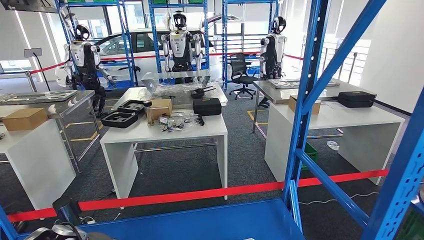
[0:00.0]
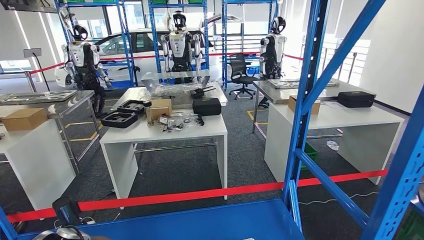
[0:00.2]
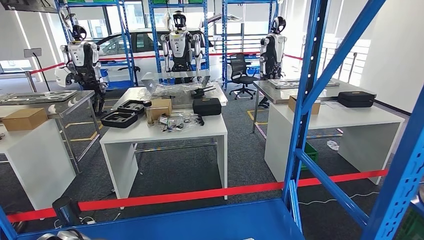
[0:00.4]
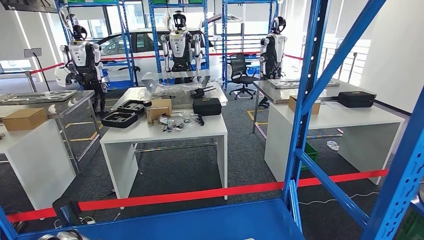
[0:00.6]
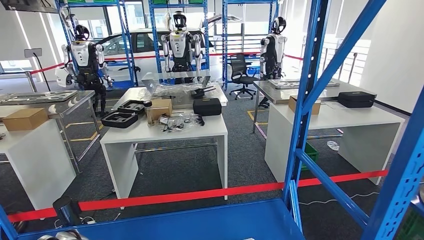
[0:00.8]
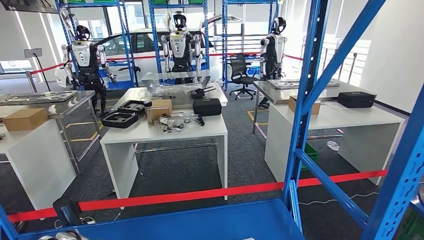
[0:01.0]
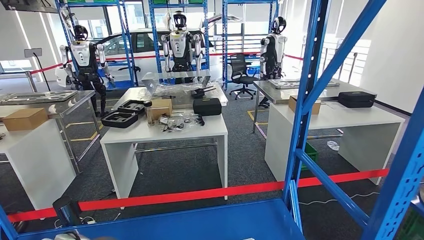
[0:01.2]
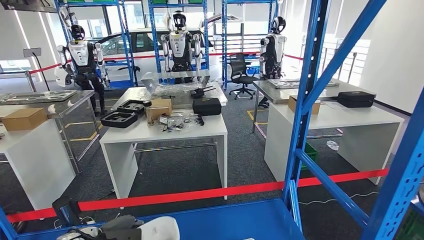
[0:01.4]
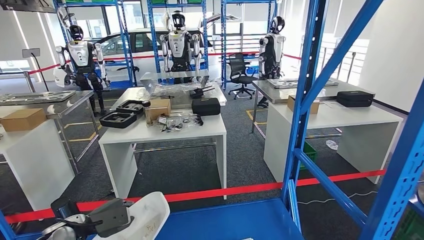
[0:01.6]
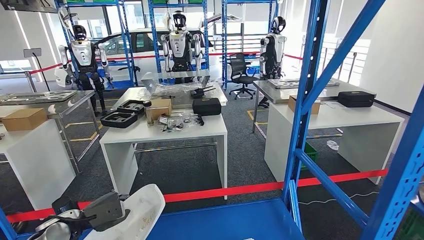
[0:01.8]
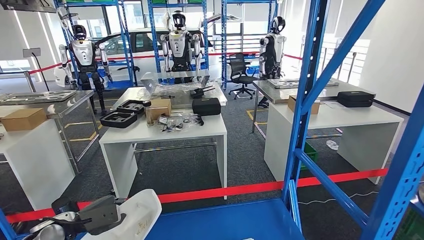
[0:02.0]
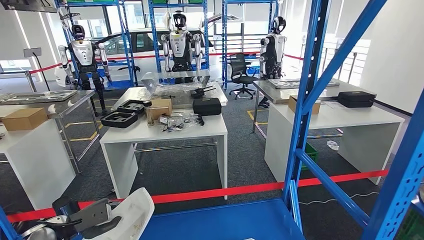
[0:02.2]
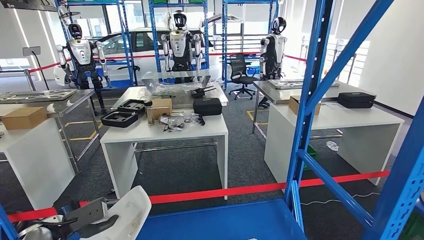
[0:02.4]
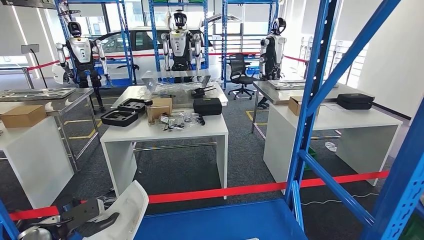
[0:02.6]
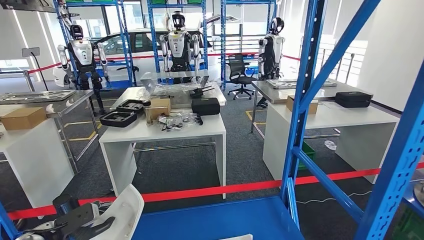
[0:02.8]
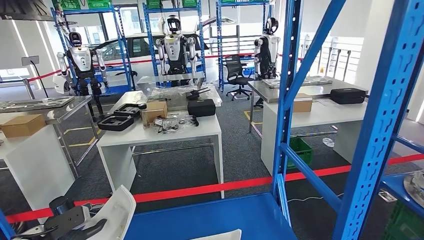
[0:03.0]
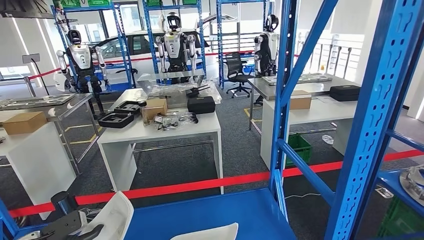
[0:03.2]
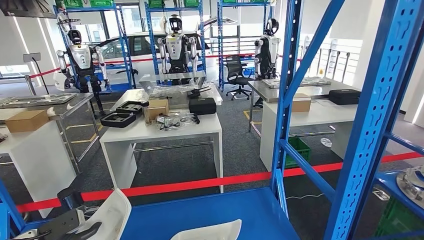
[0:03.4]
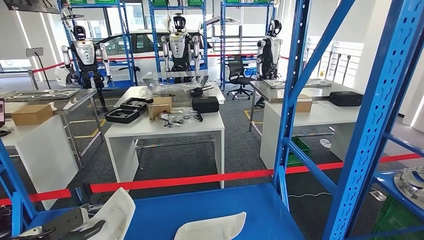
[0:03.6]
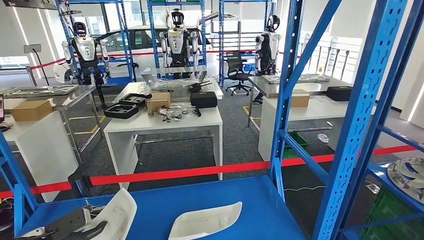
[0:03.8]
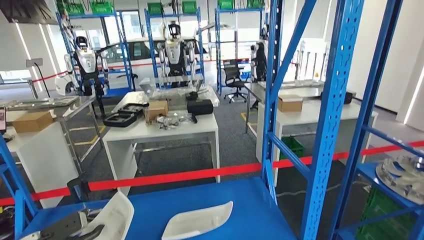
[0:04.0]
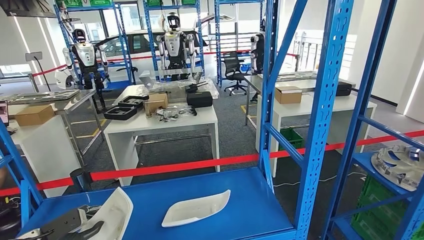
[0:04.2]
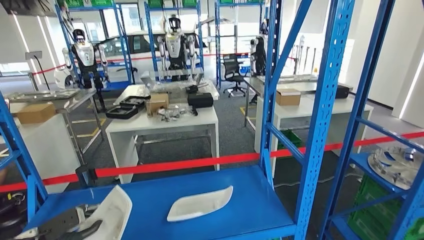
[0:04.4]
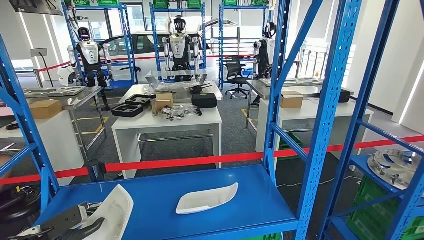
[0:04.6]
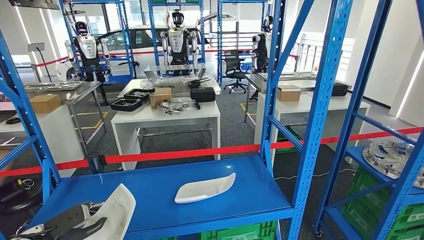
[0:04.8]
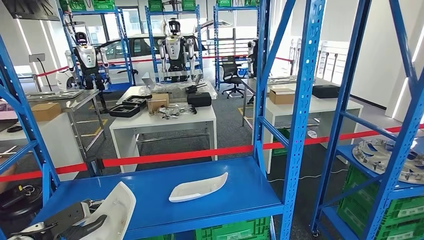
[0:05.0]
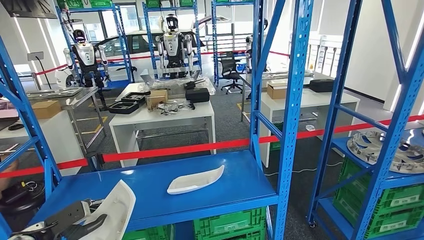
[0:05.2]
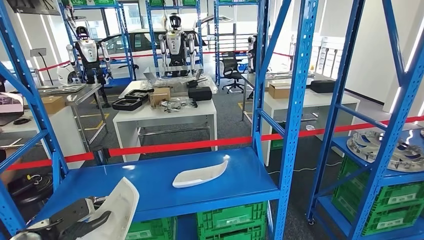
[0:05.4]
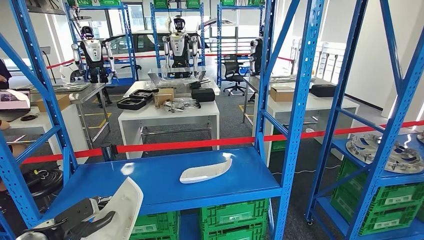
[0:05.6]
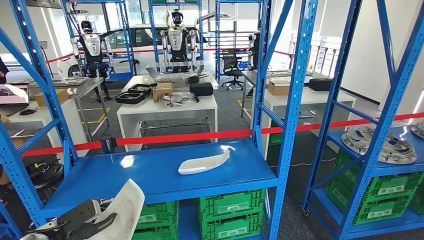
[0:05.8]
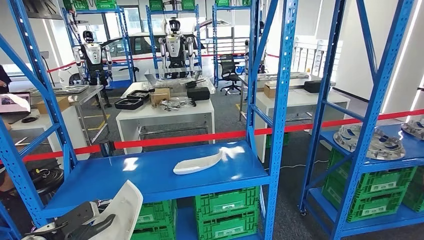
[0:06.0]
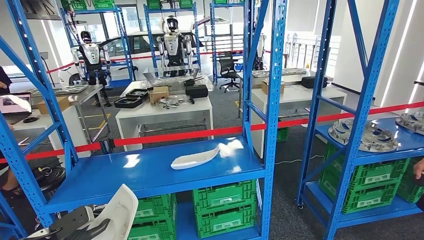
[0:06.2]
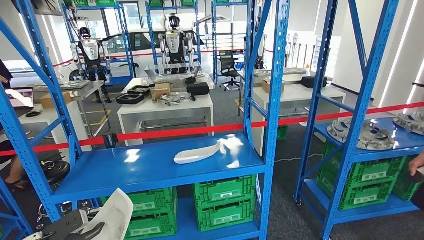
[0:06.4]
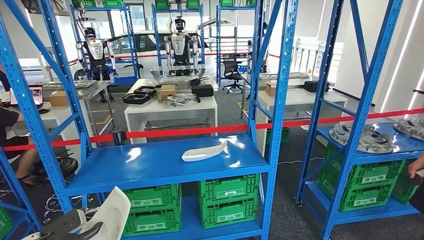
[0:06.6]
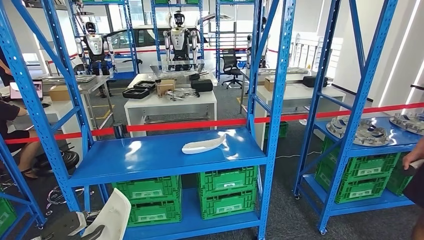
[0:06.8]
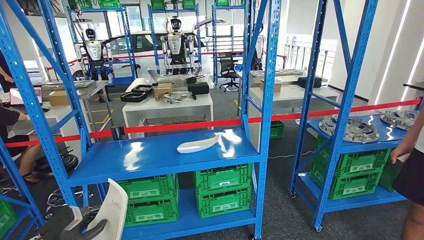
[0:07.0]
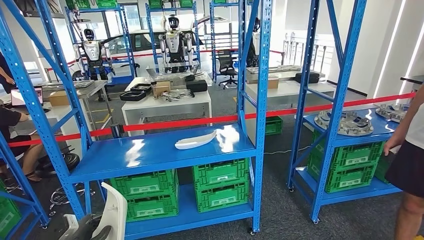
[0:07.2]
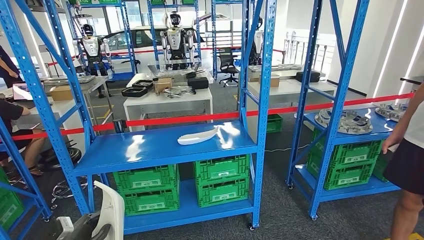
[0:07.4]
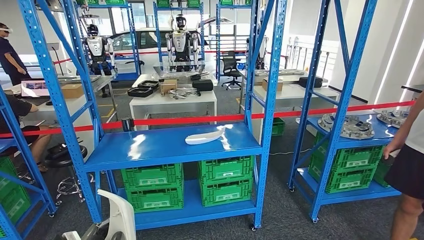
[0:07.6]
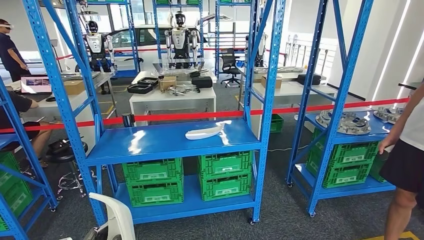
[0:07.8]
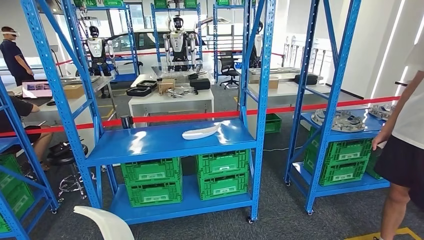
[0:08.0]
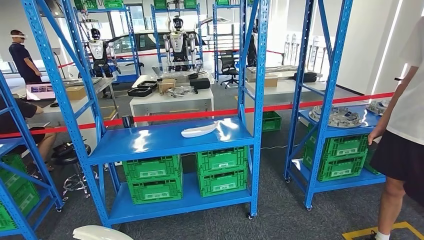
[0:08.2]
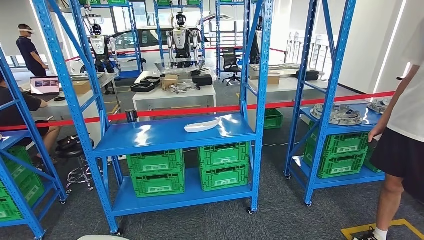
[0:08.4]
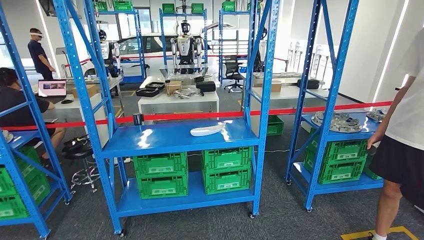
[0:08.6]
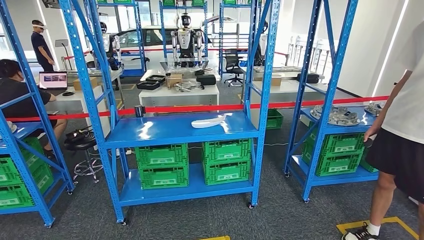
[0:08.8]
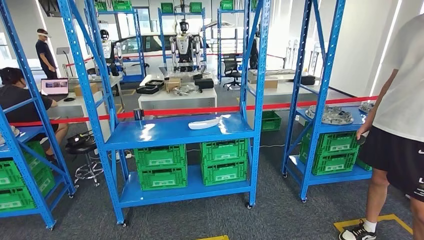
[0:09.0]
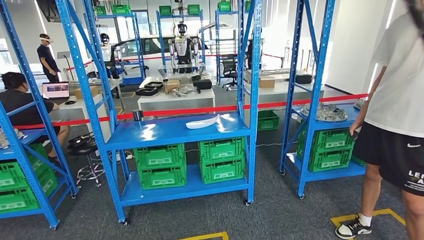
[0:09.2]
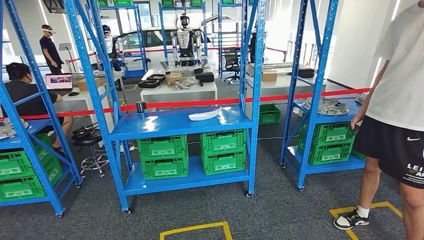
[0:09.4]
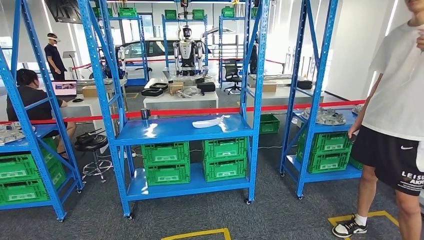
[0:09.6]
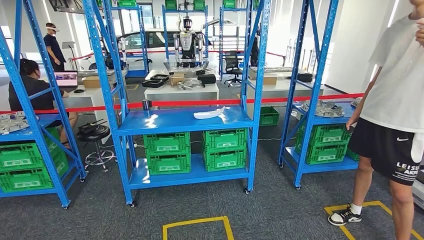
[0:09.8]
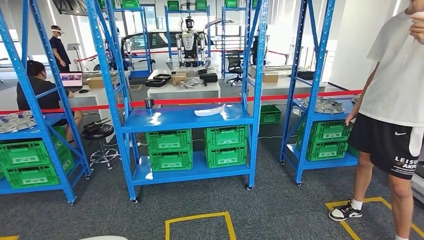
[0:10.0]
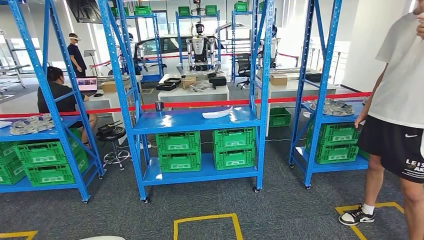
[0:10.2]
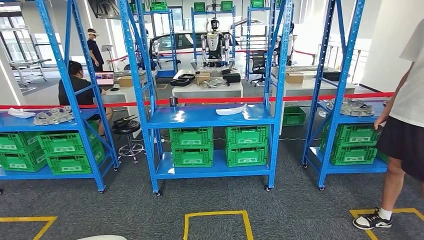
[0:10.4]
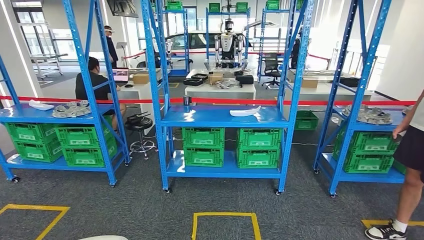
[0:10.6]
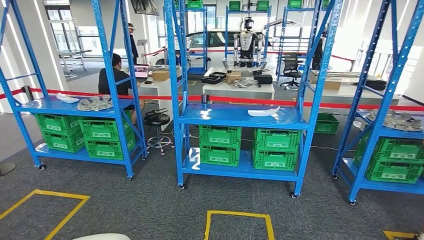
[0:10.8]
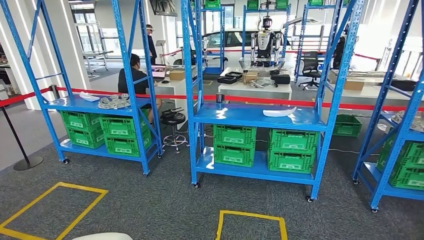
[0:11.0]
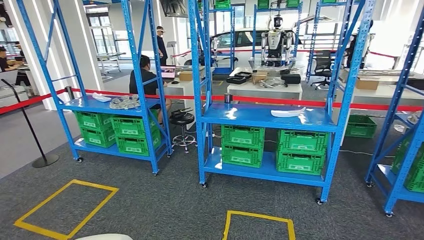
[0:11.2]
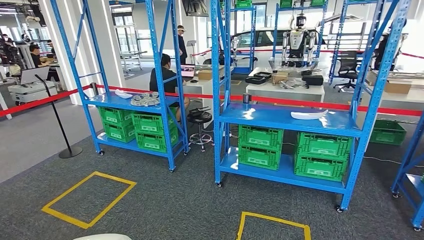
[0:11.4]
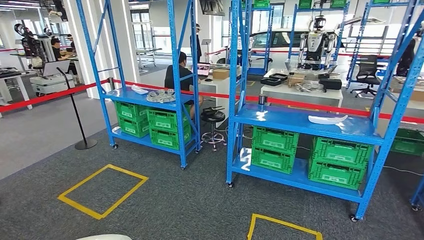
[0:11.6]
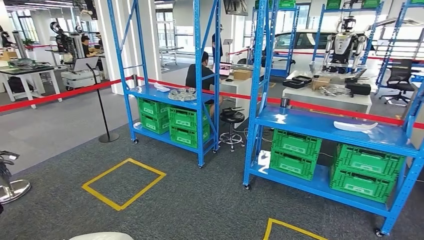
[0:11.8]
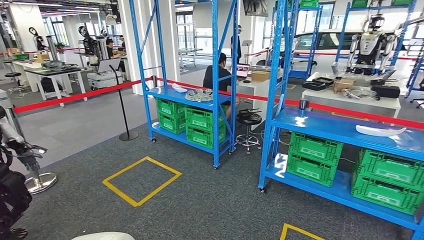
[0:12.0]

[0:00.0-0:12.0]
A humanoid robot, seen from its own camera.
Step, 0:00.0 to 0:03.4: Pick up the small component from the shelf.

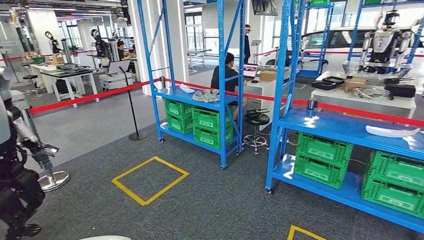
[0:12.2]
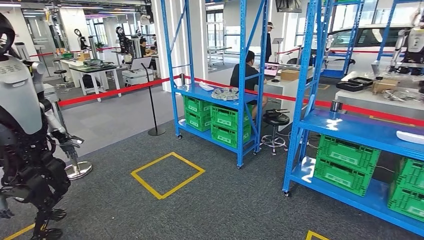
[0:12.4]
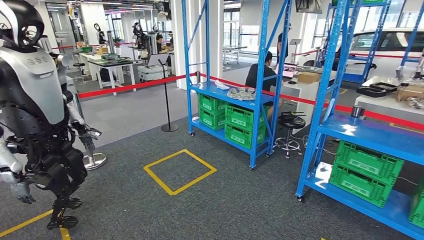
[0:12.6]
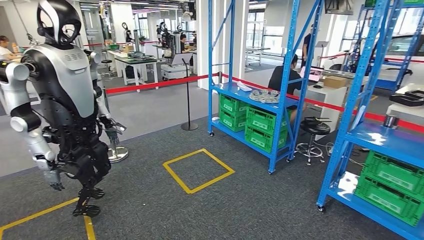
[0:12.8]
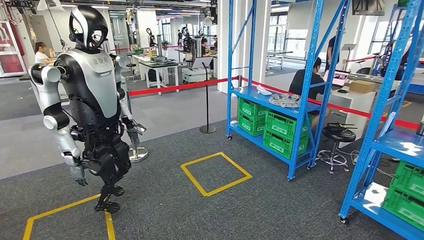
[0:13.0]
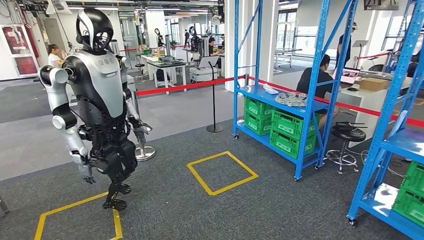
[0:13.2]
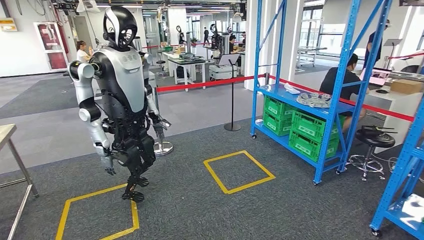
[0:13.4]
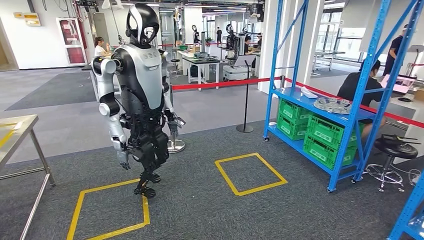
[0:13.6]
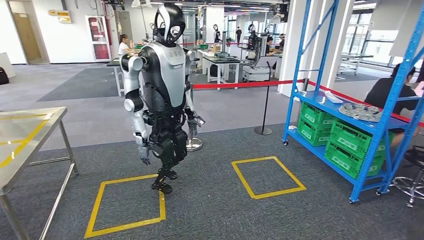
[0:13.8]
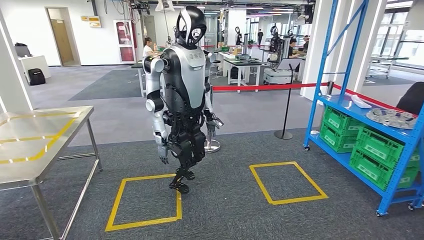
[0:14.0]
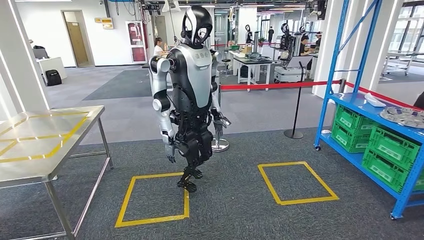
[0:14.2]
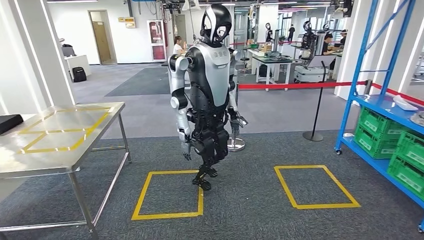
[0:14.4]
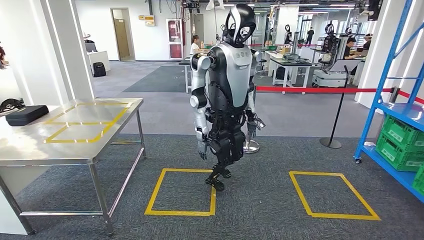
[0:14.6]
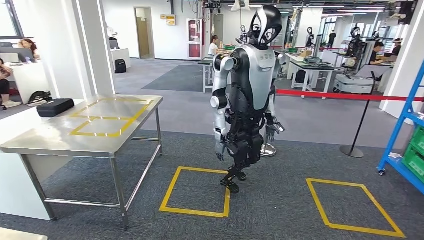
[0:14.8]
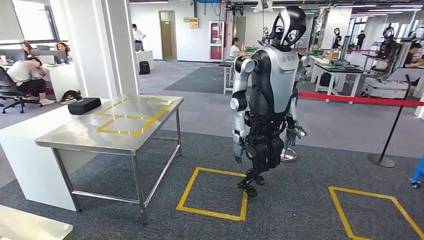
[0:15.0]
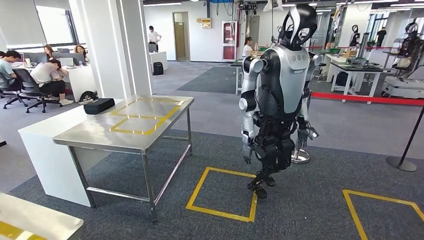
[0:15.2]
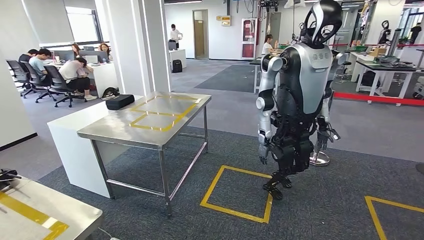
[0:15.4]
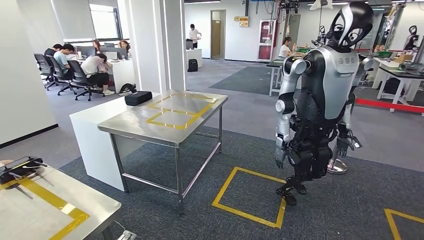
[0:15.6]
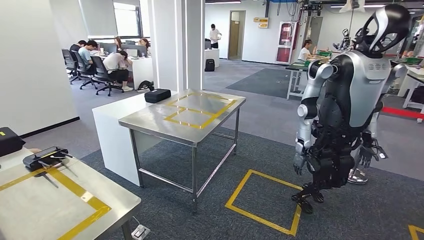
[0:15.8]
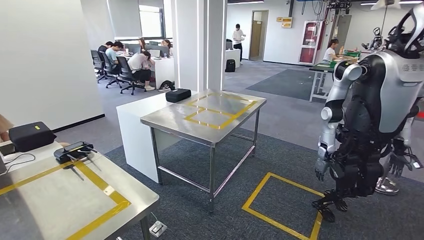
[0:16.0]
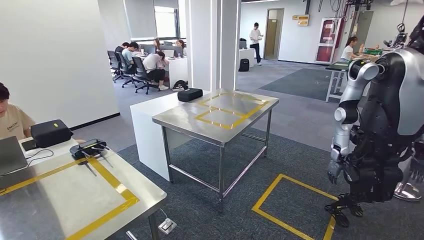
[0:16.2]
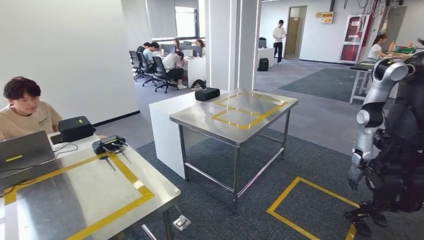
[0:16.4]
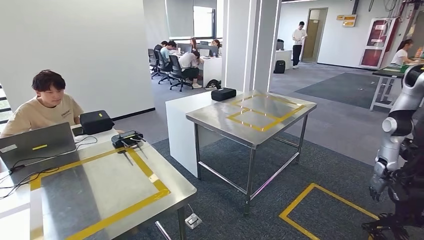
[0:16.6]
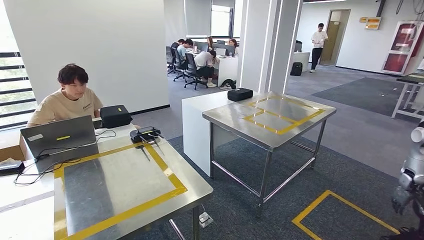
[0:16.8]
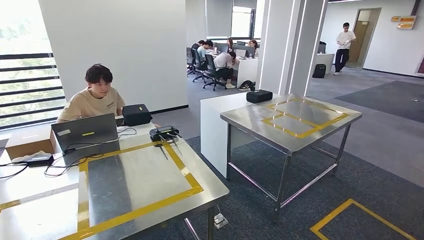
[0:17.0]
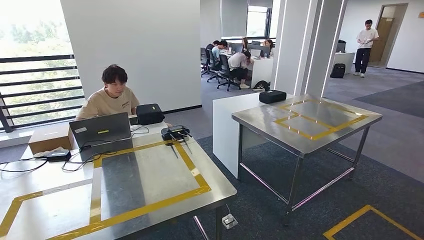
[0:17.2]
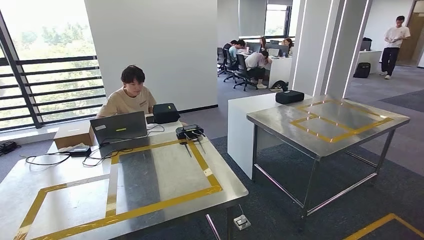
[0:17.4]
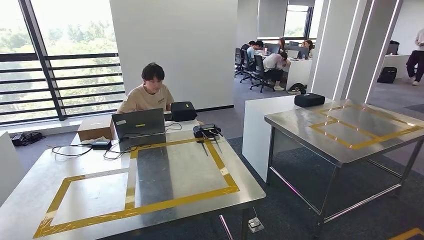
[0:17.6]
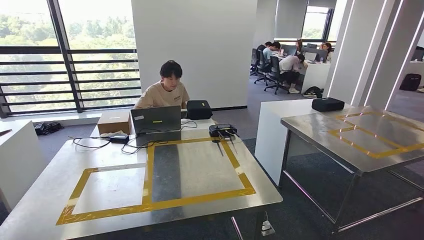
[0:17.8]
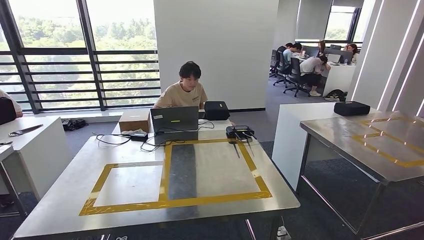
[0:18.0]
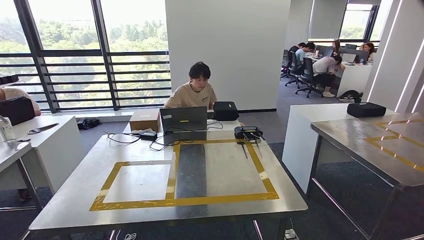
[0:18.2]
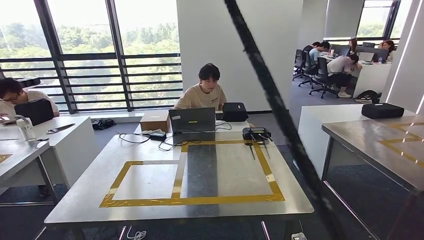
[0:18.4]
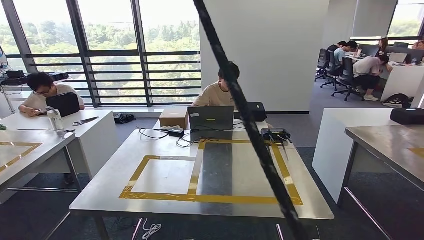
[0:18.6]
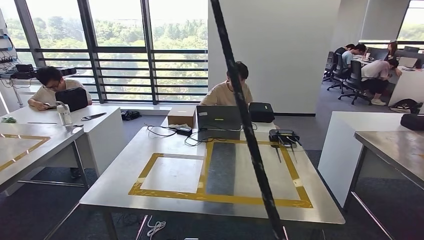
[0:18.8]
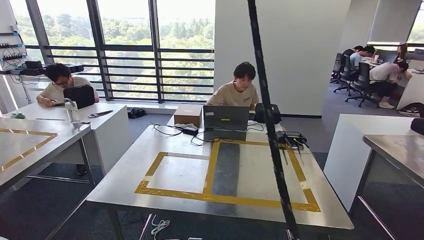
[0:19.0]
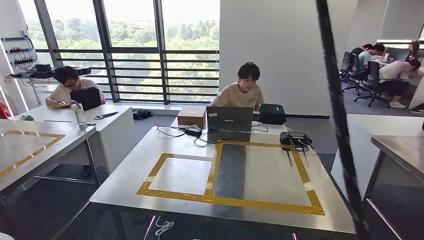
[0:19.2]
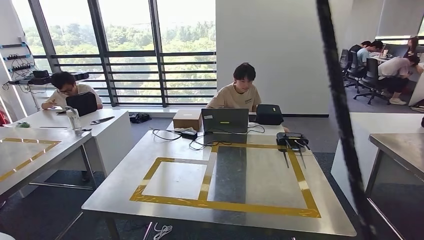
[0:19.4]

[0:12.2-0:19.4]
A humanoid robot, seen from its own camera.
Step, 0:12.2 to 0:18.4: Move the small component to the workbench.
